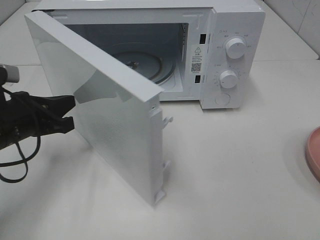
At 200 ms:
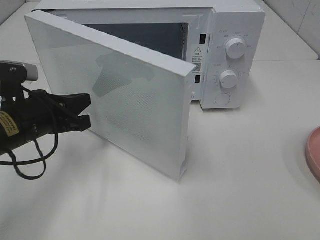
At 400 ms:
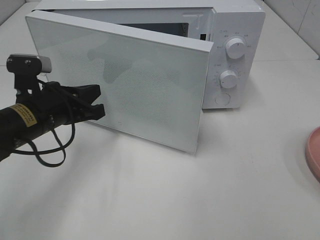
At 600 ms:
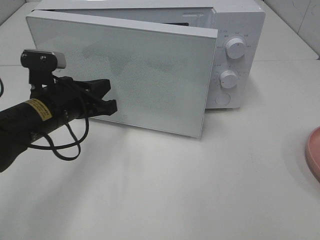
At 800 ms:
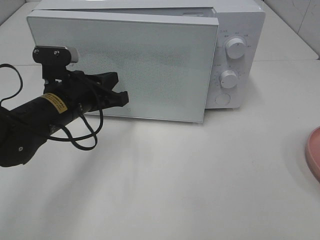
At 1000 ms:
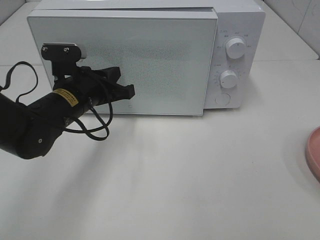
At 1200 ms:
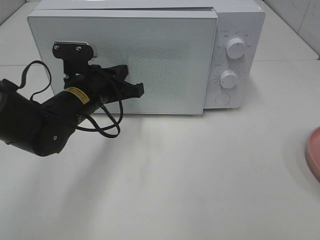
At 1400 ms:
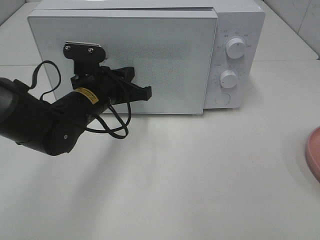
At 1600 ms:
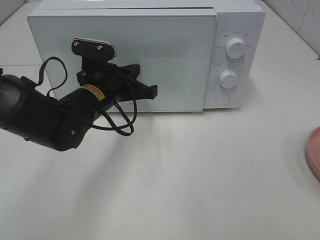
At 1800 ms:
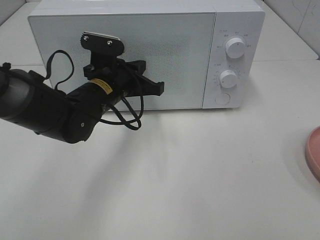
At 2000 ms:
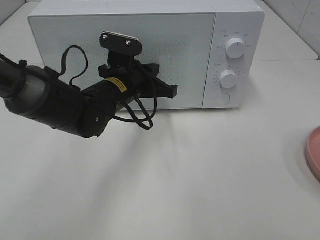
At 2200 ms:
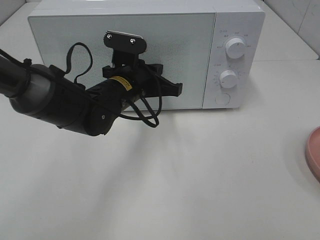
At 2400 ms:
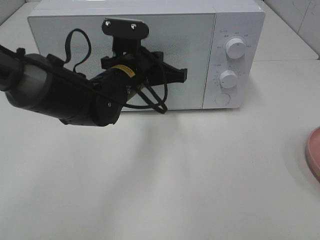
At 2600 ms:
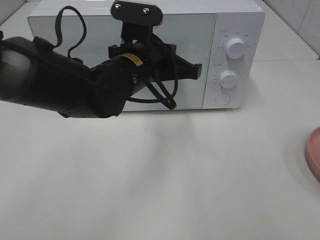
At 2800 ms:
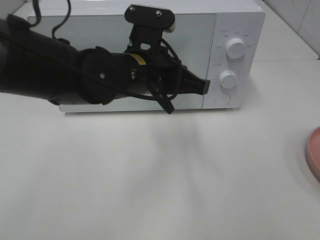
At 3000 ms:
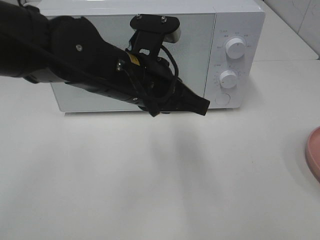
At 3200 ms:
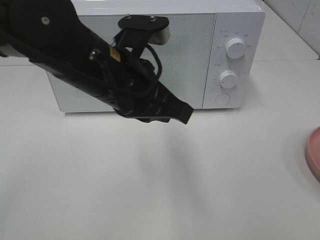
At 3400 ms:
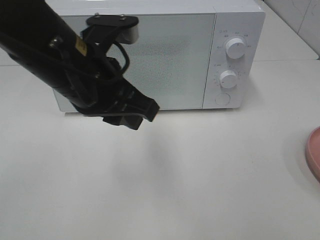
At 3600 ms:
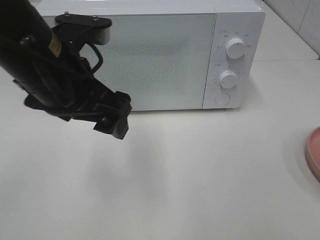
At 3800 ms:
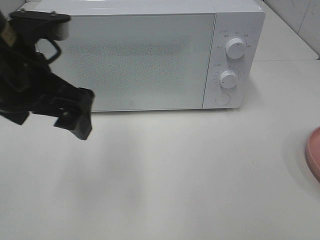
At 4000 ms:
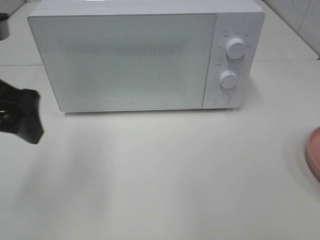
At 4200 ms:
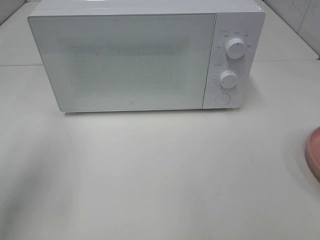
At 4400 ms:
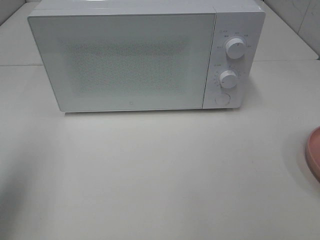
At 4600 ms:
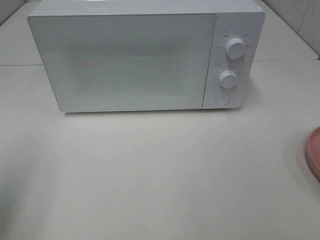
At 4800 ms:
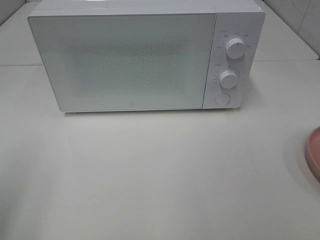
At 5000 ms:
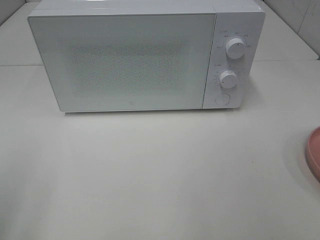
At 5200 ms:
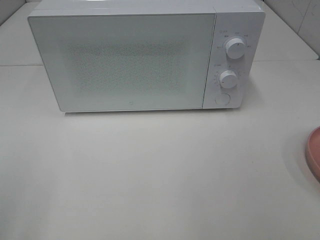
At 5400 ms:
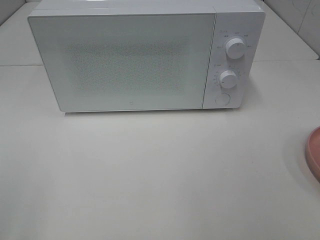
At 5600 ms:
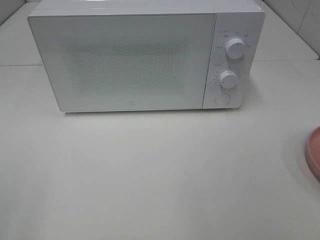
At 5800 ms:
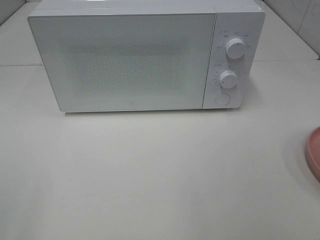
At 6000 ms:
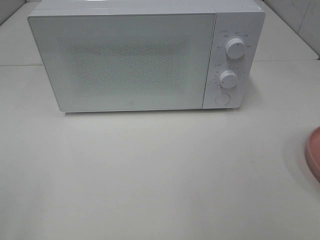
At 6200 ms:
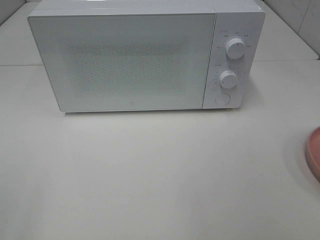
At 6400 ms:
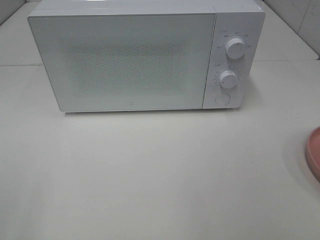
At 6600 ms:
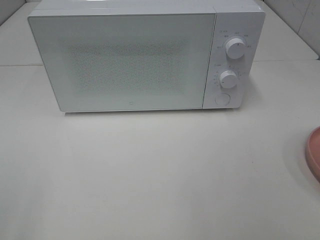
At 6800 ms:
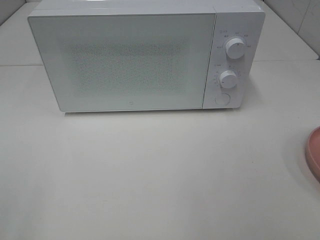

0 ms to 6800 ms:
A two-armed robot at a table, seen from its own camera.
Task of the whole recording: Heat the burger.
Step, 0 ms to 2200 ms: Left hand: close the microwave door.
0 ms to 1400 ms: The left gripper heads to the right and forward, covering some 15 cm.
1400 ms to 2800 ms: The left gripper goes some 10 cm to the right and upward.
2800 ms to 4000 ms: The left gripper goes approximately 20 cm to the left and upward, and opens up.
4000 ms to 5400 ms: The left gripper shifts roughly 20 cm backward and to the left.

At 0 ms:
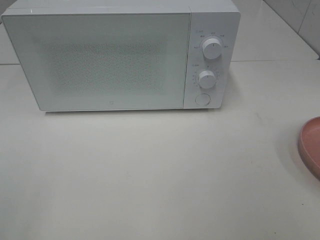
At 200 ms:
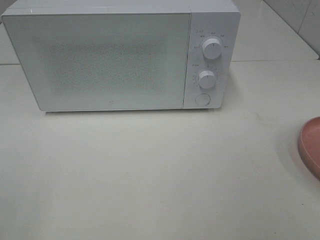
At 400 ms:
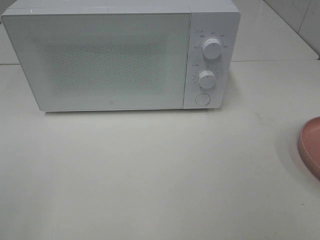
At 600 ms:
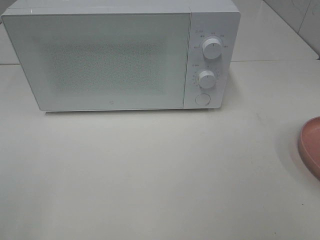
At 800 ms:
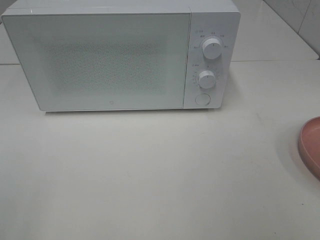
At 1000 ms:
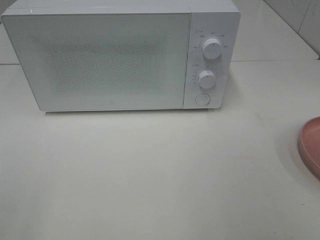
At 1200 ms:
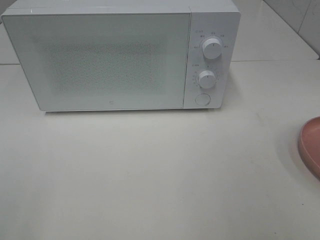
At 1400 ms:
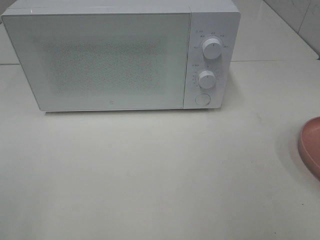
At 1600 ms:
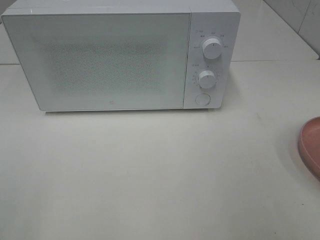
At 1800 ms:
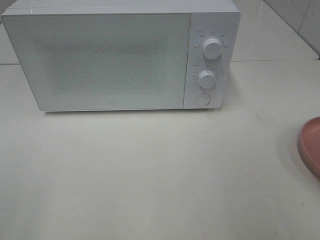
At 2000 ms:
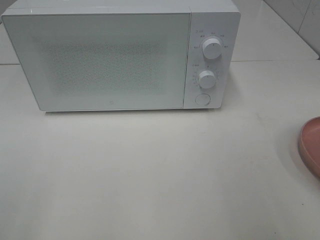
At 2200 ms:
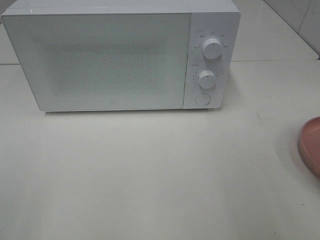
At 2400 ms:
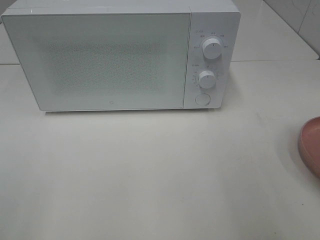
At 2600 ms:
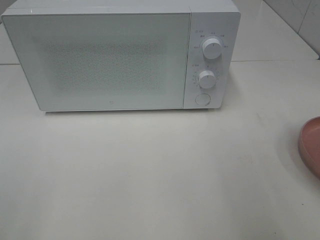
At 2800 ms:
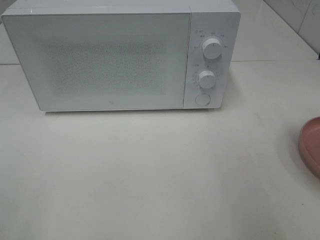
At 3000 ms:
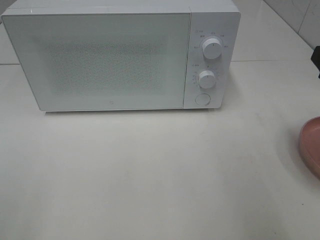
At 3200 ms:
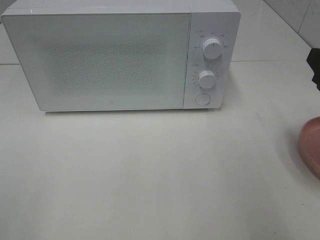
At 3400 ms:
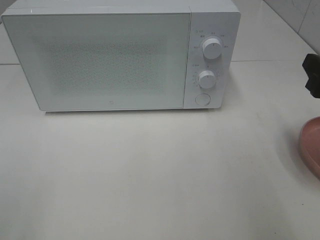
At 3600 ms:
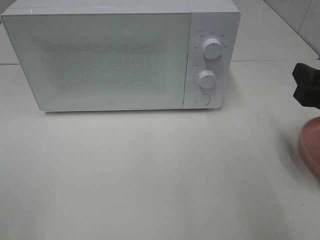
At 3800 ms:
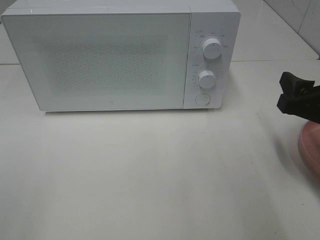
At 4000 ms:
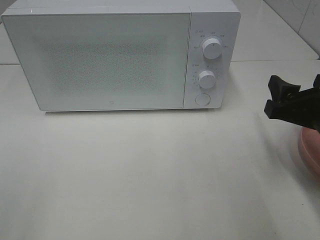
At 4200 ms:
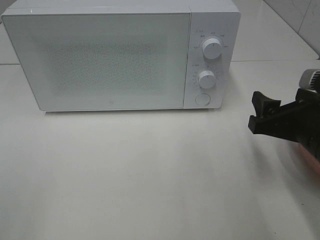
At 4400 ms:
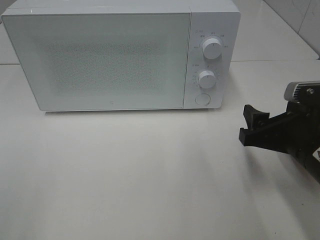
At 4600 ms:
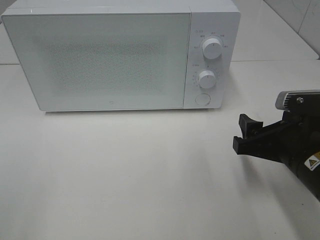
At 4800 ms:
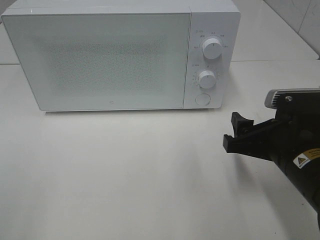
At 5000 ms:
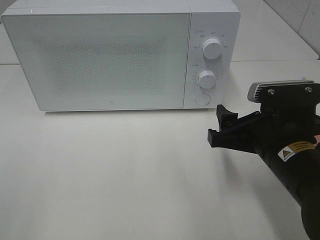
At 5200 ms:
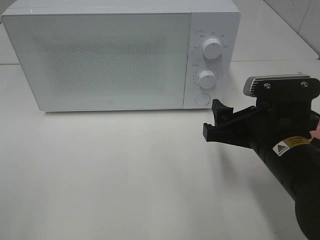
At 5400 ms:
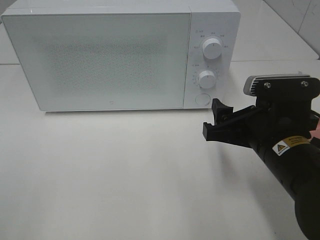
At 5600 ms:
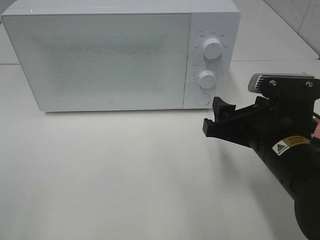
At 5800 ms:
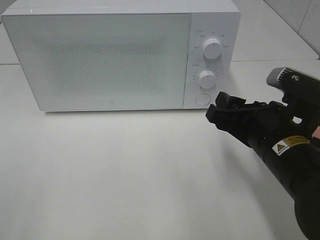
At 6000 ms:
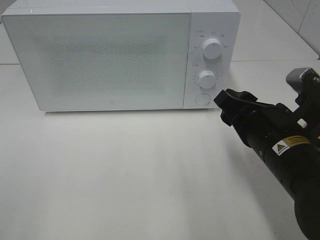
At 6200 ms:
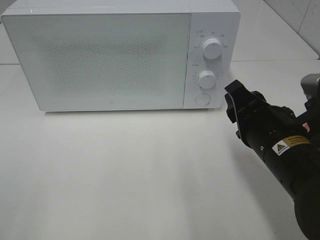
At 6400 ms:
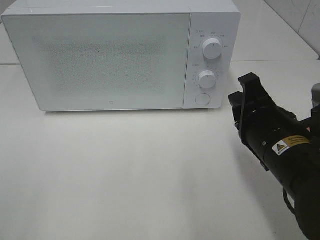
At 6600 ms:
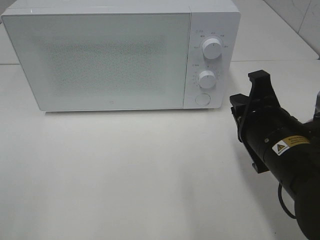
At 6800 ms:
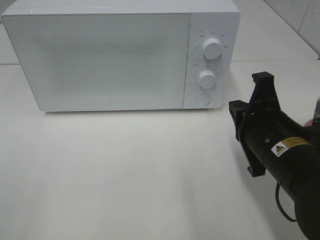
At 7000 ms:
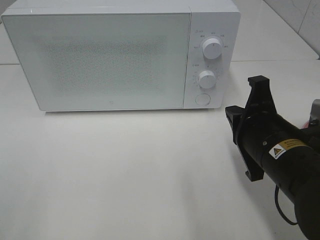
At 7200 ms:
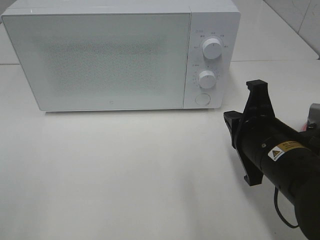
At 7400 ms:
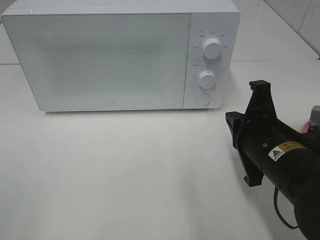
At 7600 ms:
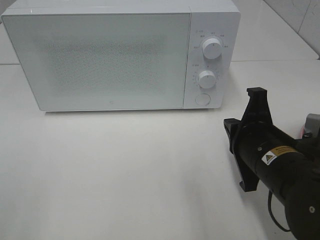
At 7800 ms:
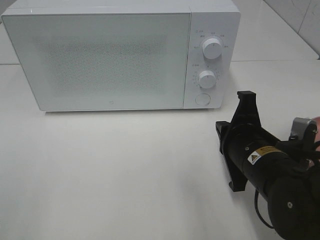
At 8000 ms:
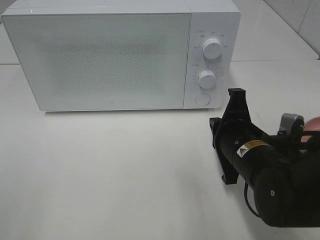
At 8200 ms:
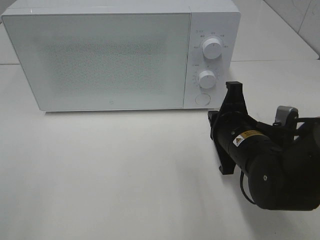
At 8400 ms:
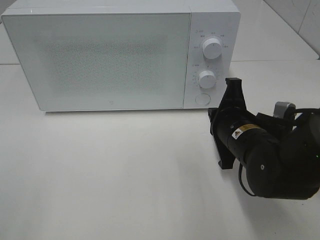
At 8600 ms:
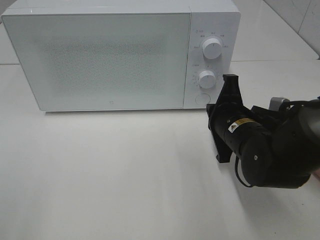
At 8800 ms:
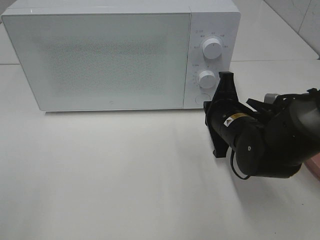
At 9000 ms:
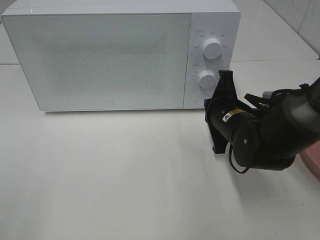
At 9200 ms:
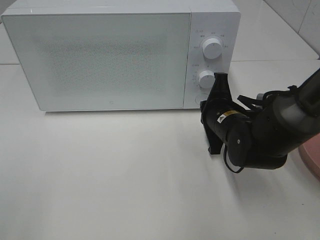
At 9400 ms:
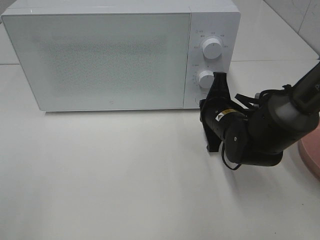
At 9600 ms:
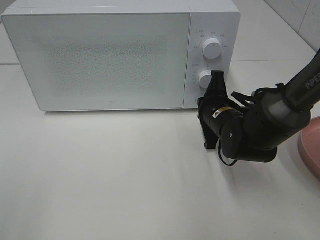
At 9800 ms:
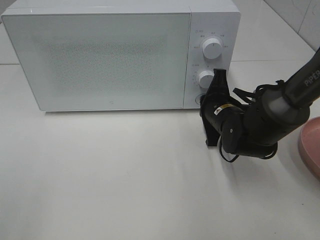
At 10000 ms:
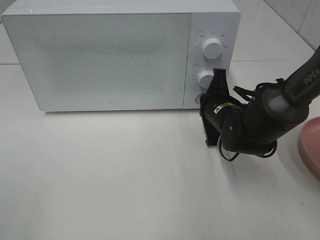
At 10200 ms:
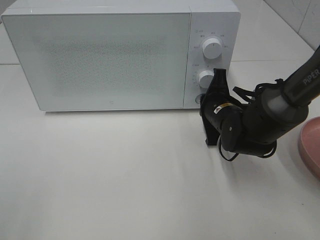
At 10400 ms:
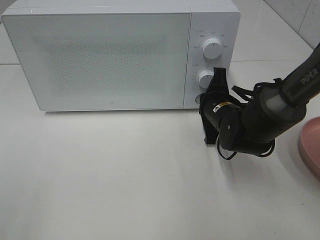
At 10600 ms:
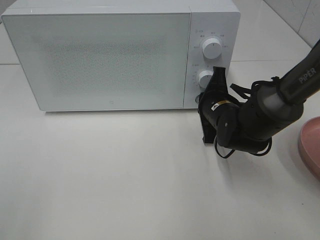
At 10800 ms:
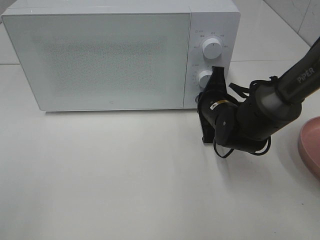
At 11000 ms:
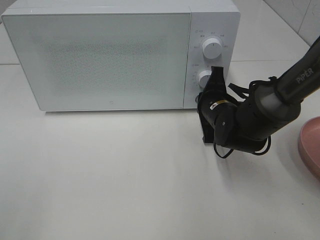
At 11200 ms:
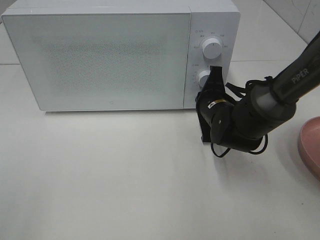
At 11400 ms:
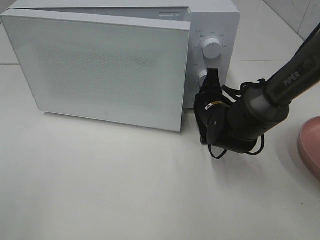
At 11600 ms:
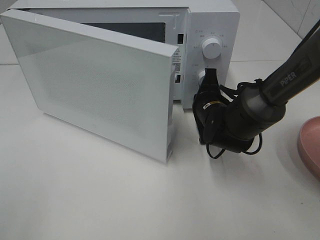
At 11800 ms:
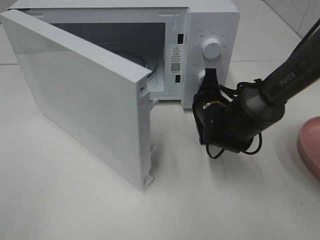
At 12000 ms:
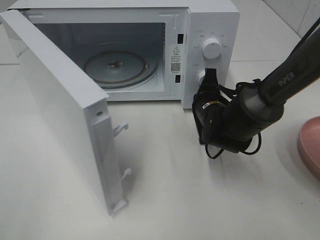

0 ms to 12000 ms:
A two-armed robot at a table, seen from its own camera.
Task of the whole recording: Heat the burger.
3000 ms to 4400 ms: The right gripper shifts roughly 10 cm downward and to the left.
4400 ms to 6000 ms: The right gripper shifts roughly 5 cm to the left.
6000 ms to 7600 ms: The right gripper closes.
7600 ms to 9000 ms: The right gripper travels forward by about 10 cm.
9000 ms to 10400 ms: The grippers stay close to where they were, moving slightly.

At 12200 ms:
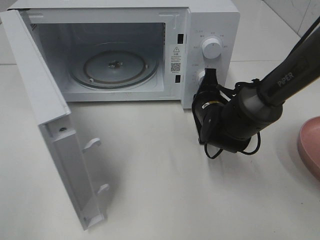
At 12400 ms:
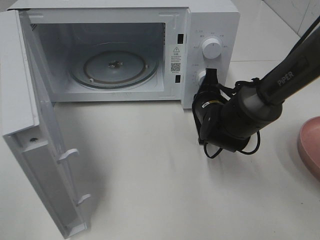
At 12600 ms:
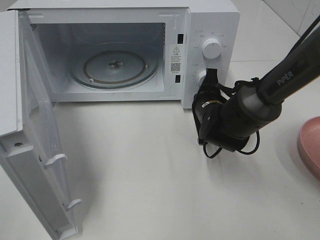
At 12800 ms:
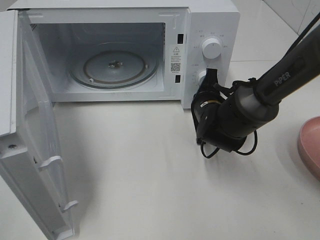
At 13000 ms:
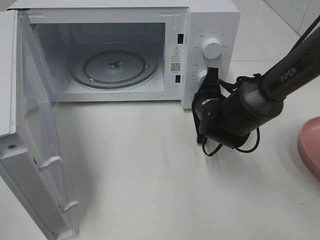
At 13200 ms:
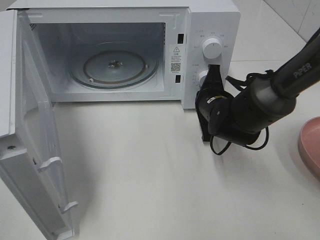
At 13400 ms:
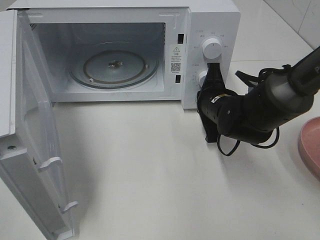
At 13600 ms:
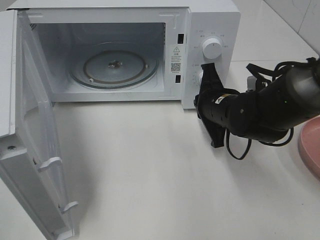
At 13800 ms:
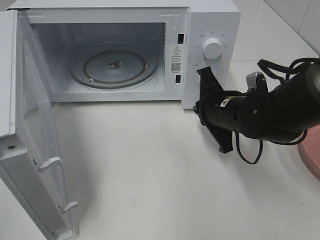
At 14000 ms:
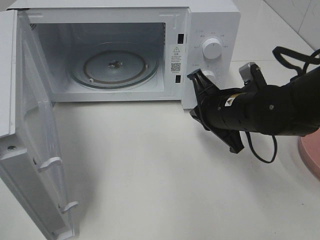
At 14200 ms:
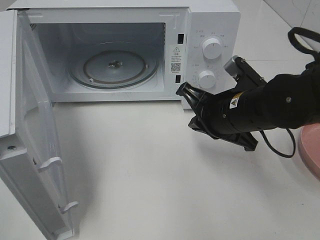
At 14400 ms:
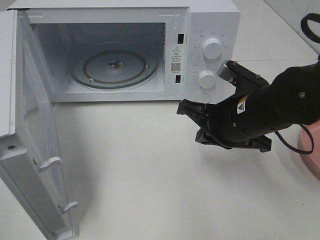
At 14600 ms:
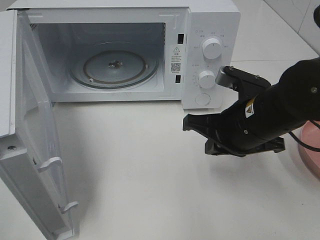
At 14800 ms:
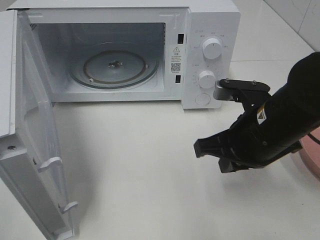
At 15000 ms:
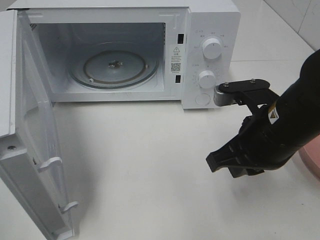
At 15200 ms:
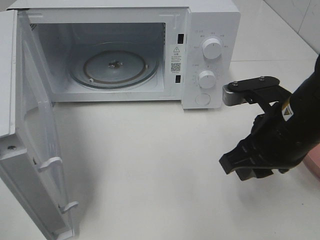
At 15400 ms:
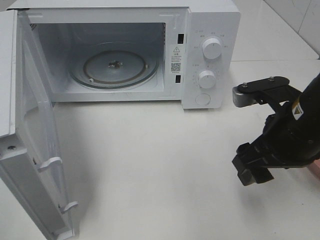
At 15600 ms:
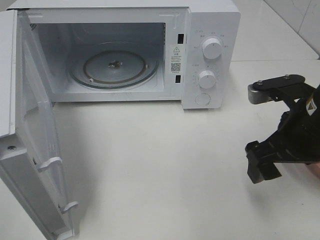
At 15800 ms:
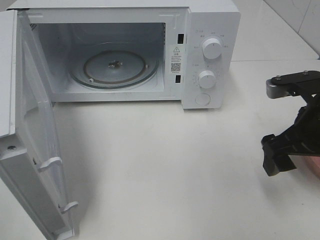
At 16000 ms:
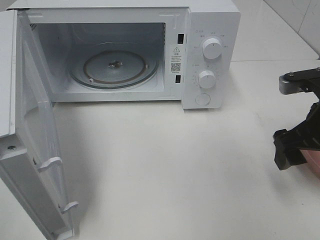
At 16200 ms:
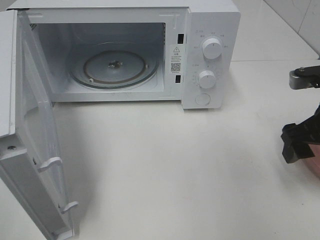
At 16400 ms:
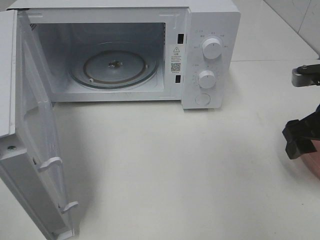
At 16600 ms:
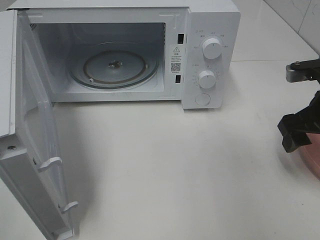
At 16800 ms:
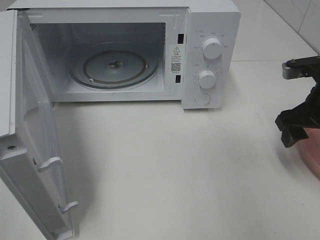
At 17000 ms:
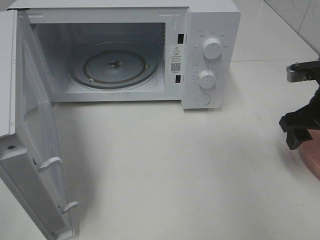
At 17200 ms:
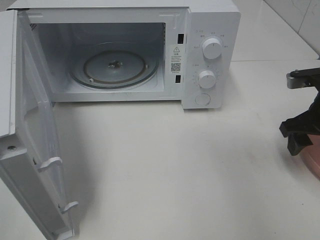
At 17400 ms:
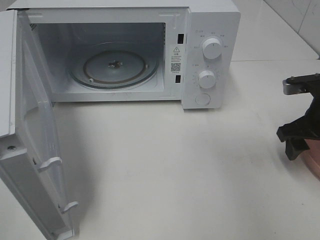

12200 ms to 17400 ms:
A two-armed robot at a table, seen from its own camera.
Task of the whole recording: Heat the burger.
12200 ms to 14000 ms: The right gripper moves backward and upward, roughly 10 cm.
14000 ms to 15600 ms: The right gripper shifts about 10 cm to the right, backward and upward, and opens up.
15600 ms to 17400 ms: The right gripper heads to the right and forward, covering about 10 cm.
